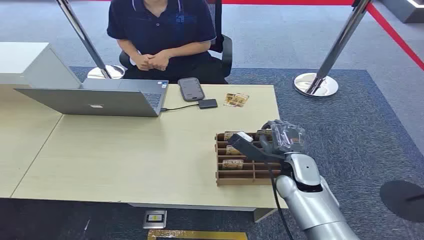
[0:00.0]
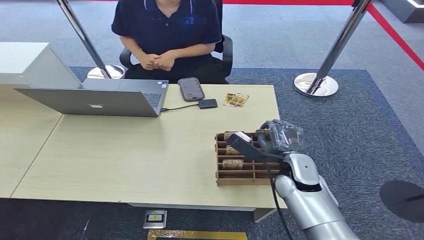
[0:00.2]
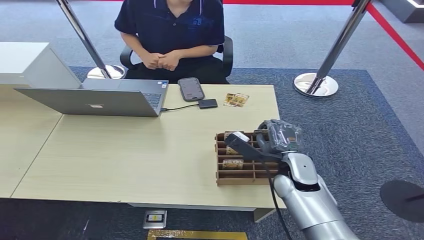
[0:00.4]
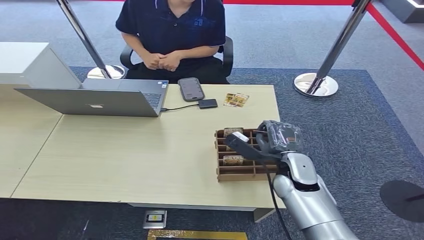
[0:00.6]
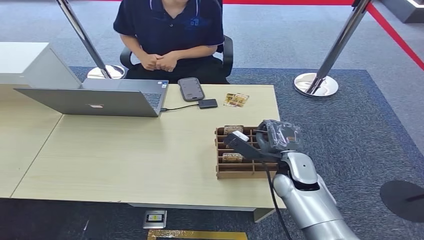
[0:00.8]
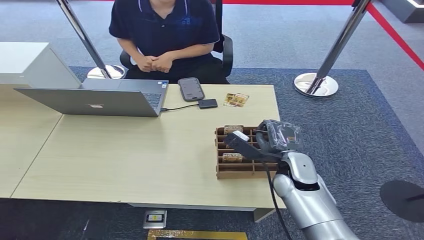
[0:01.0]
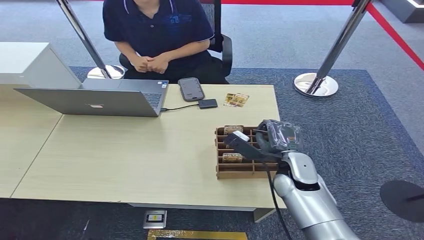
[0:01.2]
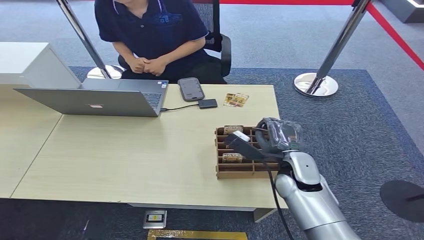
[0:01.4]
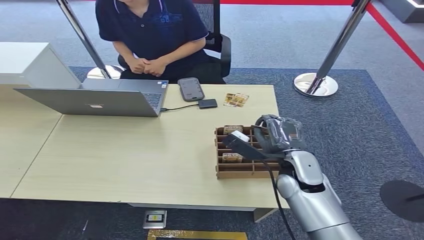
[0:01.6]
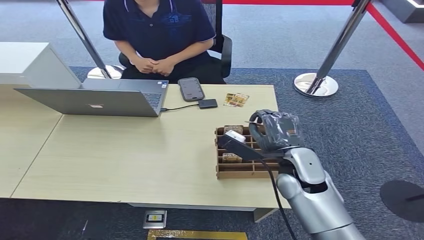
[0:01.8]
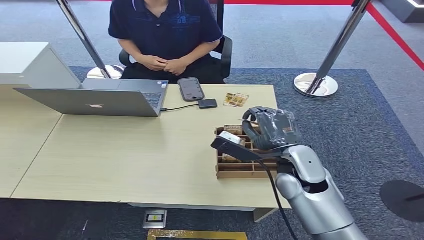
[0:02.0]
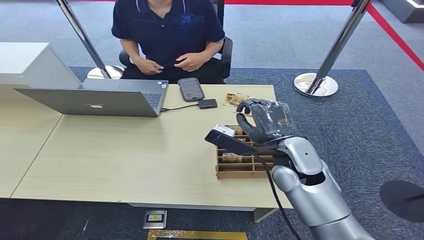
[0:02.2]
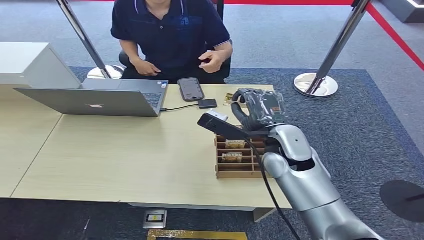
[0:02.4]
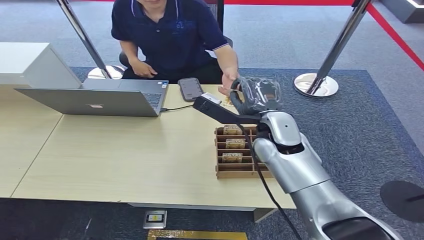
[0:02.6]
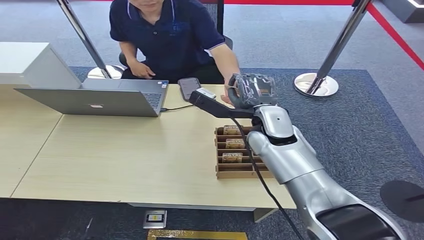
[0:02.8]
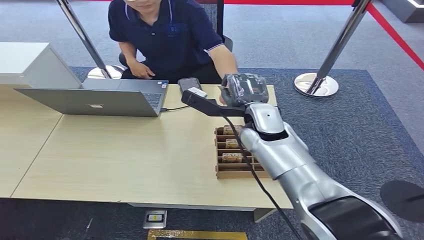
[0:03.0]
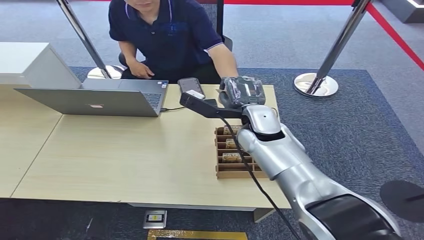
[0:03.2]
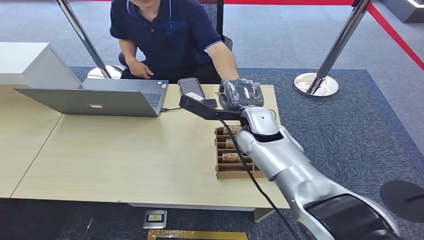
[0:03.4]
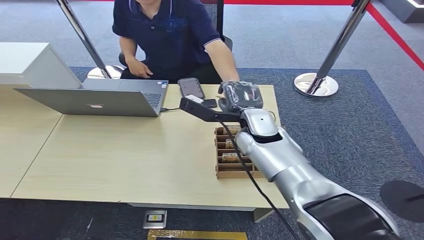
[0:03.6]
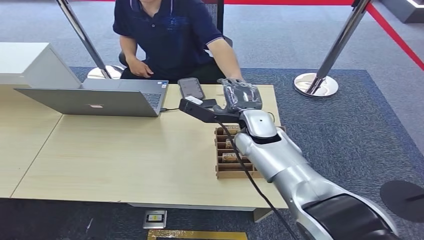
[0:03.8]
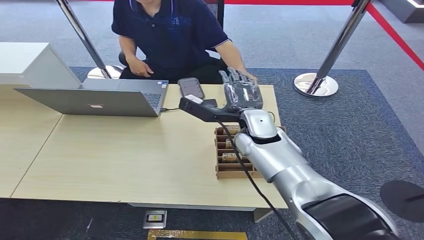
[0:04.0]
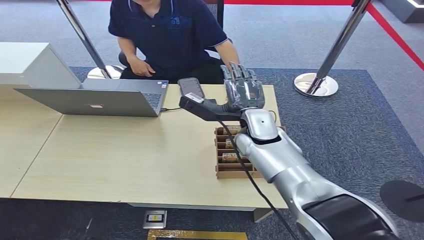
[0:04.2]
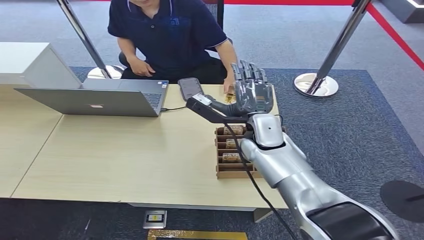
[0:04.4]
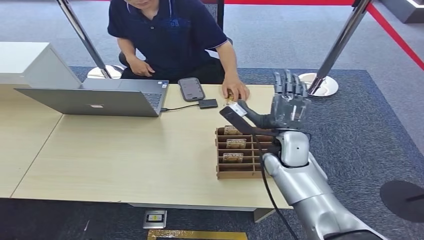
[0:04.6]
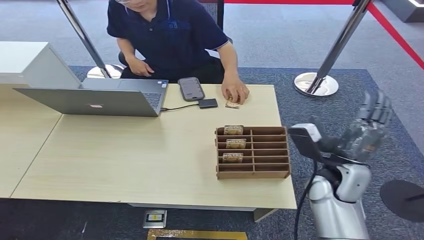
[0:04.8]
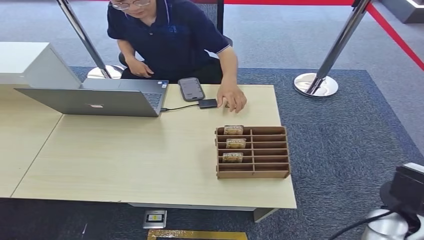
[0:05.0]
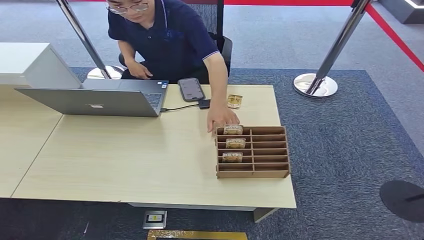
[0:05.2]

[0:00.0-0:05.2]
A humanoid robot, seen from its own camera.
Step, 0:00.0 to 0:02.2: Pick up the room card from the card holder.
Step, 0:02.6 to 0:05.2: Hand the room card to the target.
0:01.8 to 0:03.4: The right hand shifts roughly 15 cm forward, to the left and upward.
0:03.4 to 0:05.2: The right hand goes approximately 35 cm to the right and backward.
